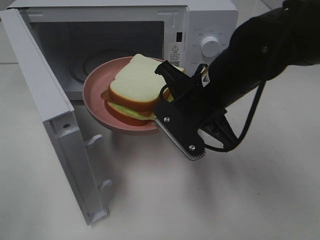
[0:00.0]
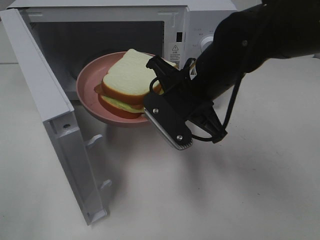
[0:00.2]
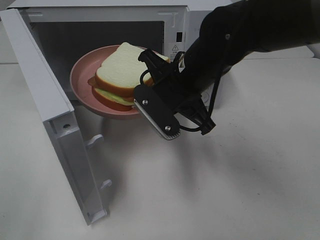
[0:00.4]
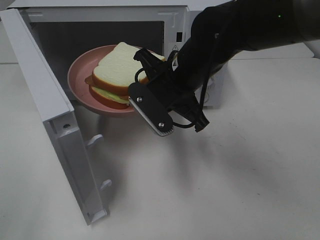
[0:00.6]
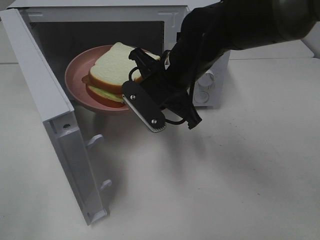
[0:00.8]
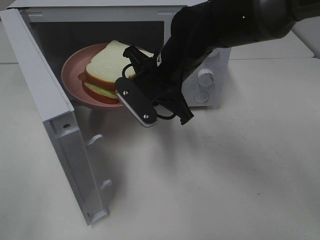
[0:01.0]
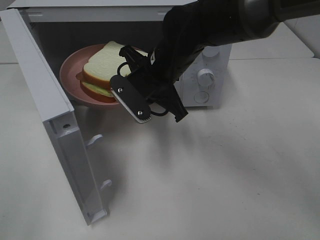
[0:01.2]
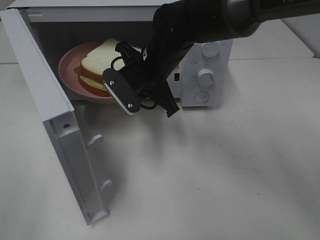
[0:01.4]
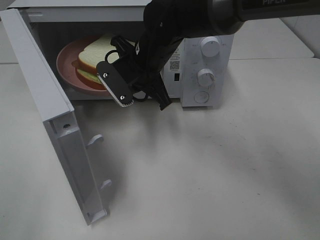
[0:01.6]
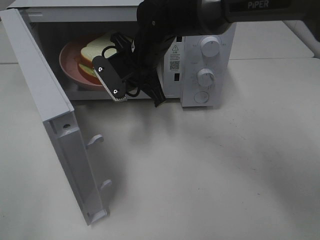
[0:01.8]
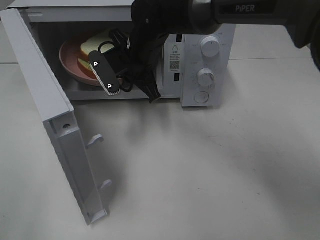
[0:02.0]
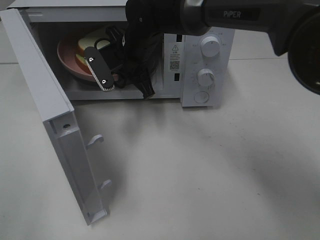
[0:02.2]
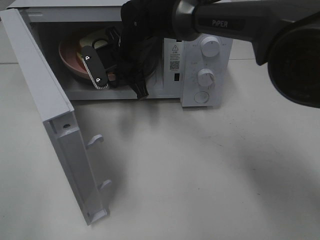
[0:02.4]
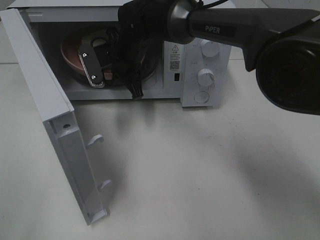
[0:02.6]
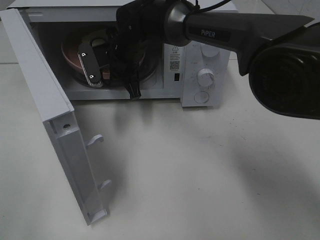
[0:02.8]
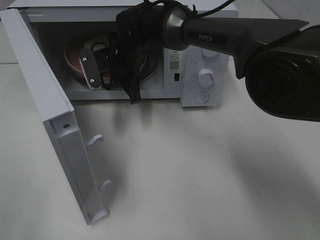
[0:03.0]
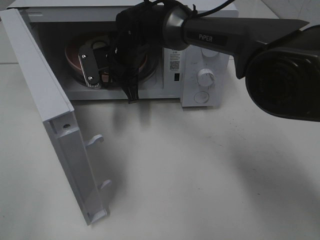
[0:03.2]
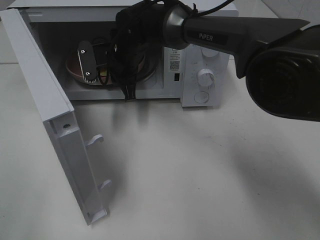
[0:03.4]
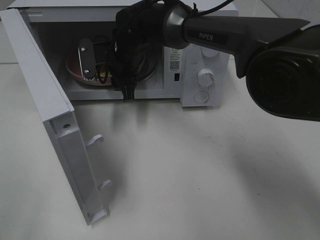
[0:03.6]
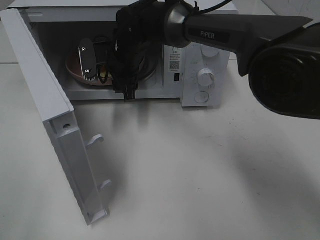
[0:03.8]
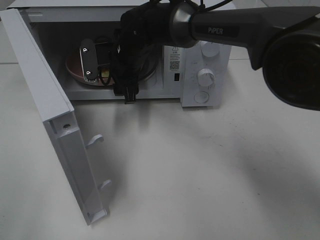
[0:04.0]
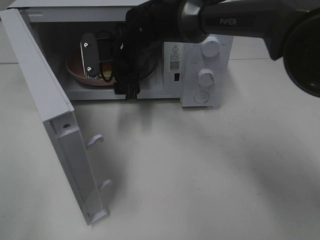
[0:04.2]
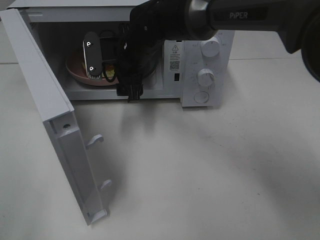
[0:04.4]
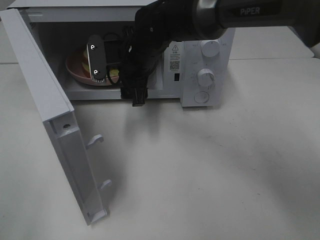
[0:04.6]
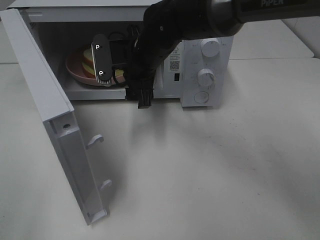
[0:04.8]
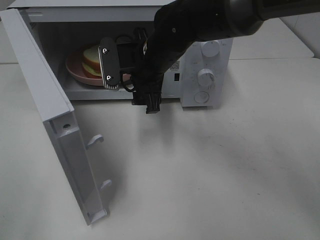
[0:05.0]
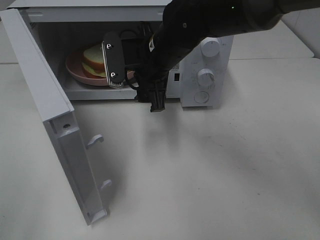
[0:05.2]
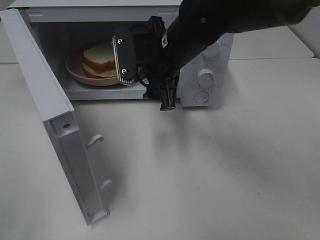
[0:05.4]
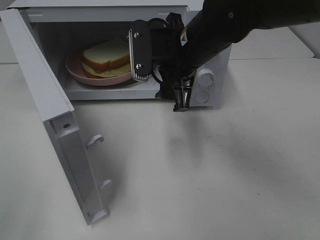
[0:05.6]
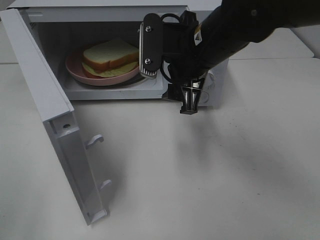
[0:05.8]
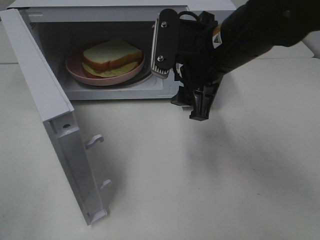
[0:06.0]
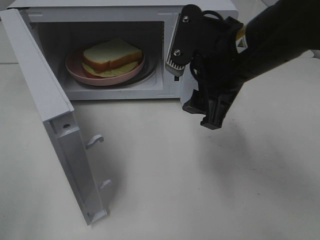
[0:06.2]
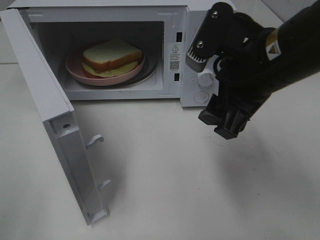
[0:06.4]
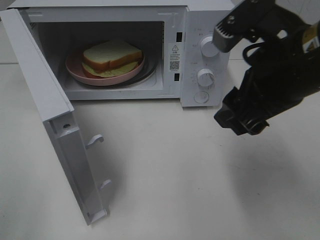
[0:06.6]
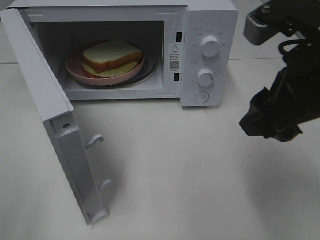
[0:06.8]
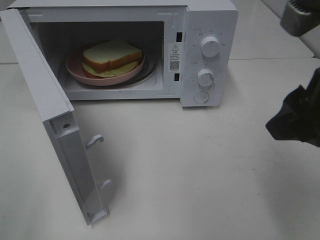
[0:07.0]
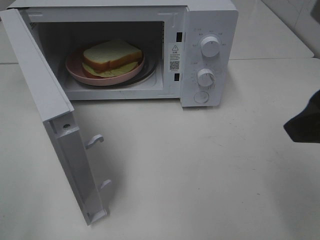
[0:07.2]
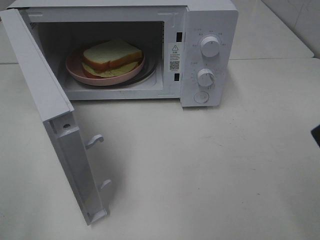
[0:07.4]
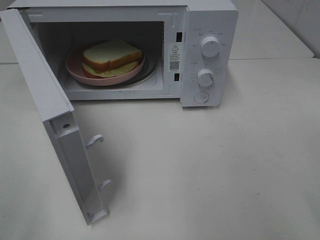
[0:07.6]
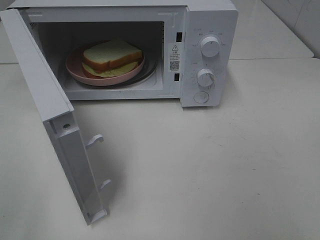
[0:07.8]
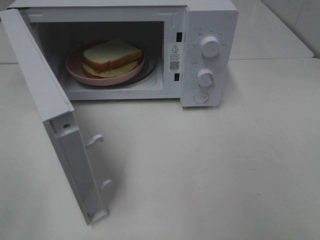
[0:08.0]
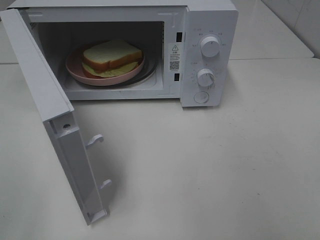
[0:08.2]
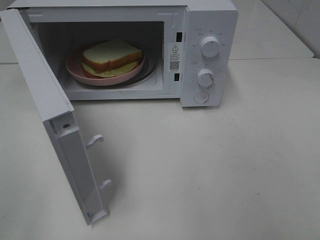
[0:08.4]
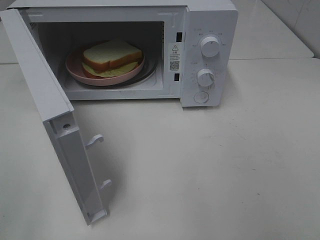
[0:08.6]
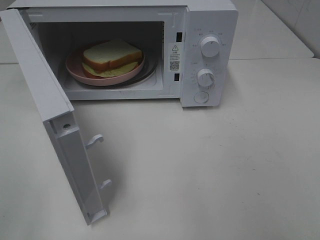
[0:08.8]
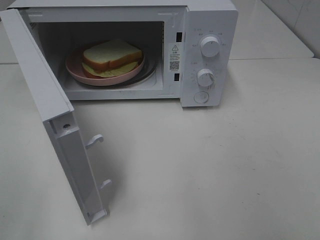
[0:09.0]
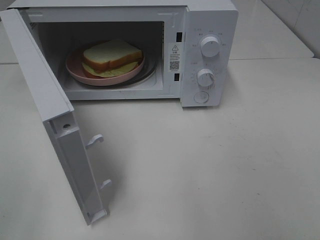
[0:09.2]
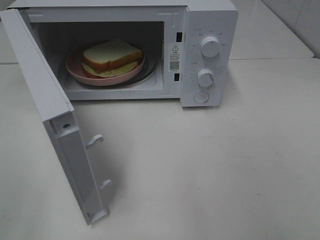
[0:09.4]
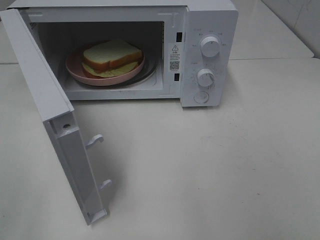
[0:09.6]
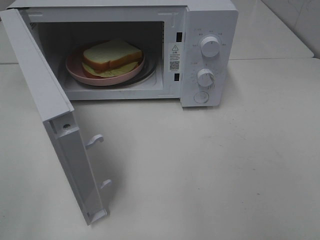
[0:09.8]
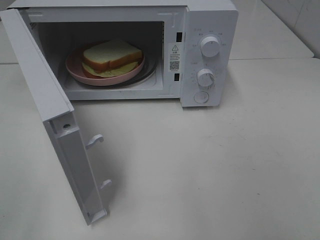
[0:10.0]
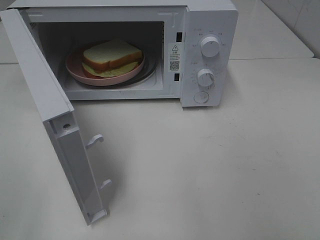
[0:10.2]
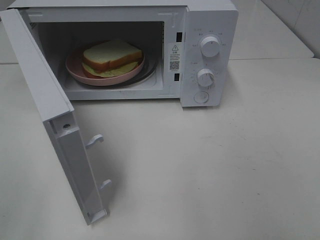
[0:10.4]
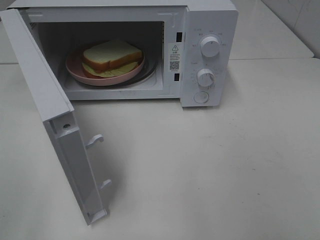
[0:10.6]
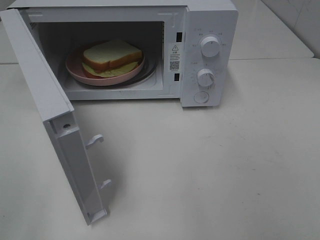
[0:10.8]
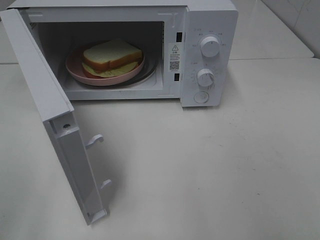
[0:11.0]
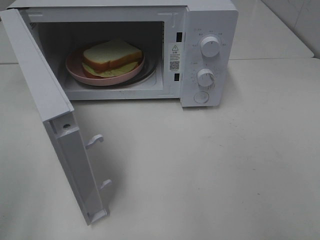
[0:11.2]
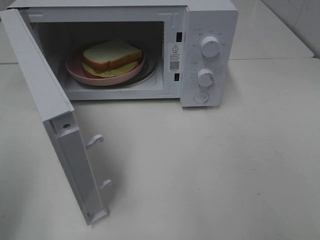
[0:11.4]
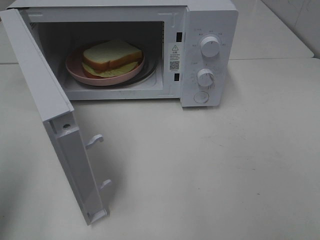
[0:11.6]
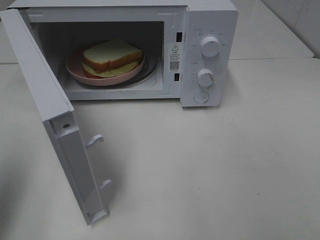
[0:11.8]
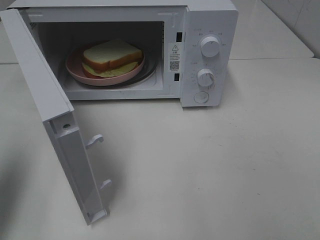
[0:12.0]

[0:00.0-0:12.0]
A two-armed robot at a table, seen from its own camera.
Task of the whole recording: Heat Sandwich.
Step, 0:00.0 to 0:04.8: Right hand: place the plate in the microwave.
0:00.0 to 0:01.6: The right gripper moves forward and to the left, some 15 cm.
0:01.6 to 0:03.0: The right gripper heads forward, covering some 5 cm.
0:03.0 to 0:04.4: The right gripper opens its fingers.
0:04.4 to 0:06.0: The right gripper moves backward, to the right and upward, about 20 cm.
0:06.0 to 0:07.6: The right gripper travels backward, to the right and upward by roughly 25 cm.
0:09.0 to 0:10.4: Both grippers stay put.
0:10.4 to 0:12.0: The left gripper shifts roughly 15 cm forward, and closes.

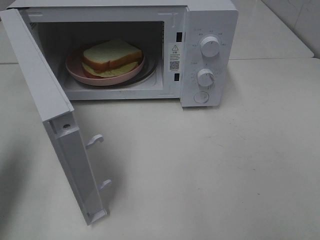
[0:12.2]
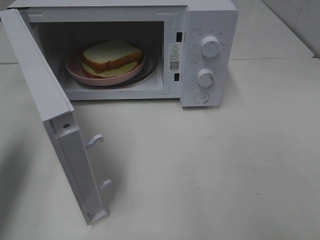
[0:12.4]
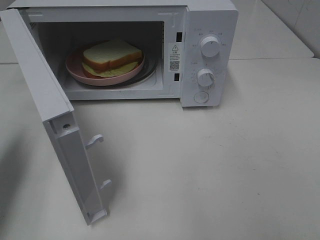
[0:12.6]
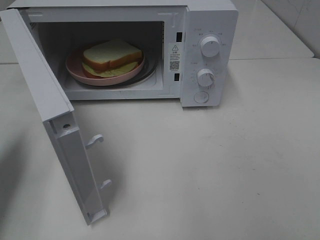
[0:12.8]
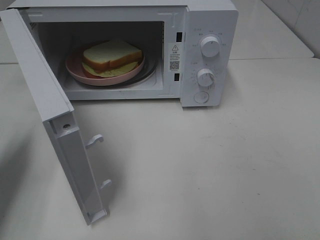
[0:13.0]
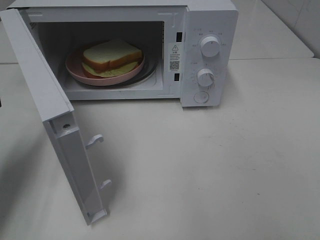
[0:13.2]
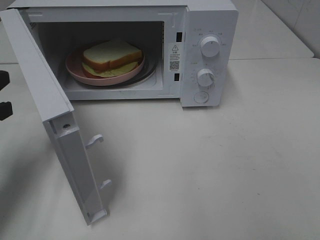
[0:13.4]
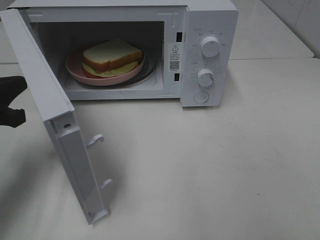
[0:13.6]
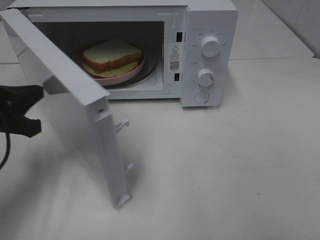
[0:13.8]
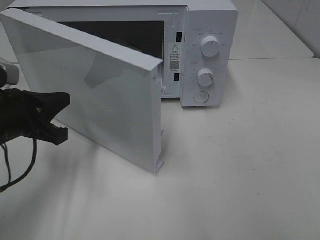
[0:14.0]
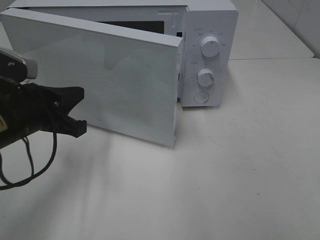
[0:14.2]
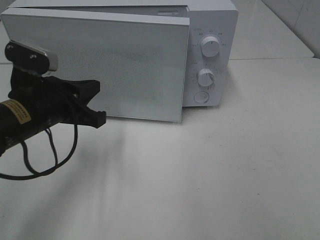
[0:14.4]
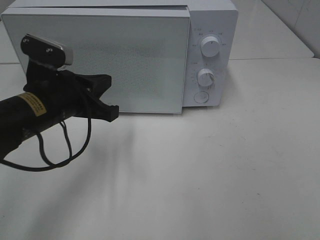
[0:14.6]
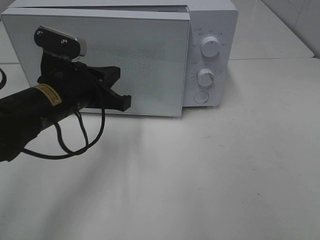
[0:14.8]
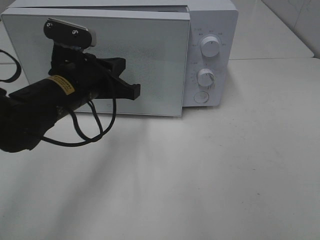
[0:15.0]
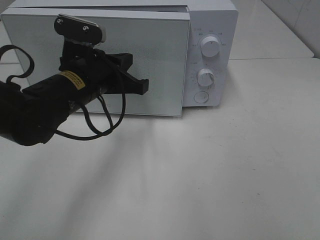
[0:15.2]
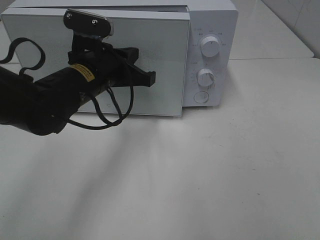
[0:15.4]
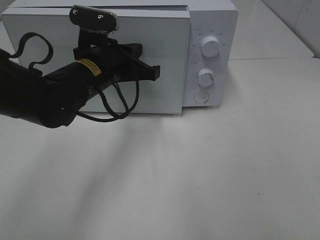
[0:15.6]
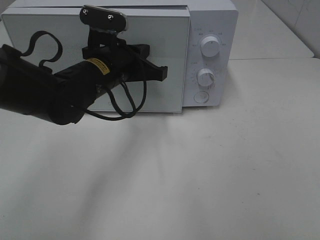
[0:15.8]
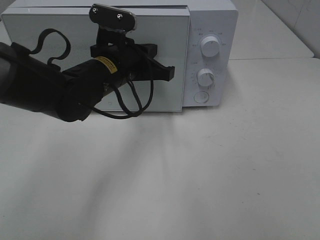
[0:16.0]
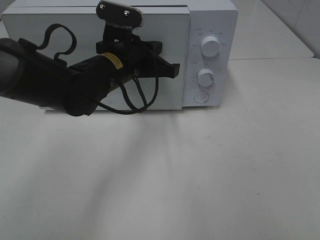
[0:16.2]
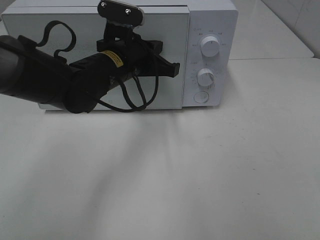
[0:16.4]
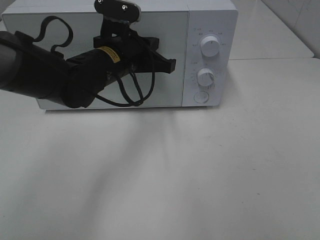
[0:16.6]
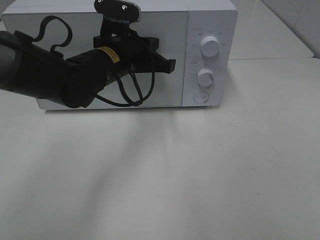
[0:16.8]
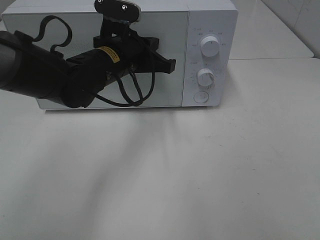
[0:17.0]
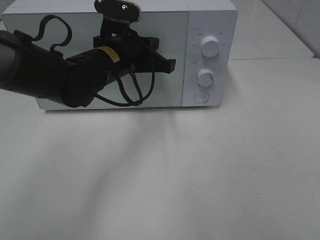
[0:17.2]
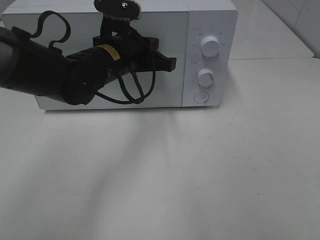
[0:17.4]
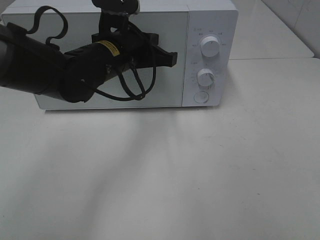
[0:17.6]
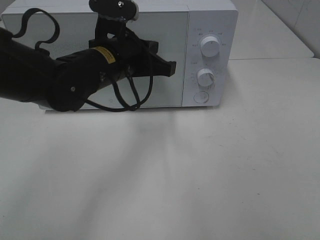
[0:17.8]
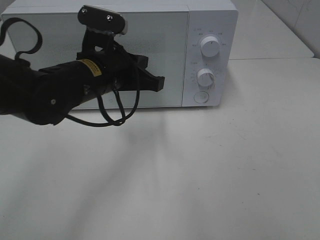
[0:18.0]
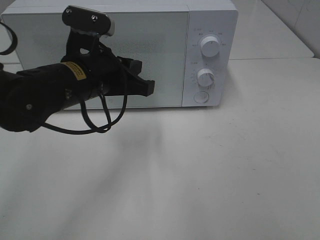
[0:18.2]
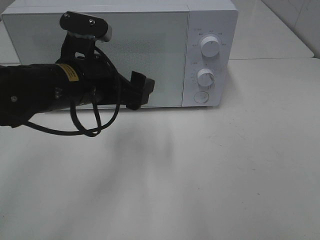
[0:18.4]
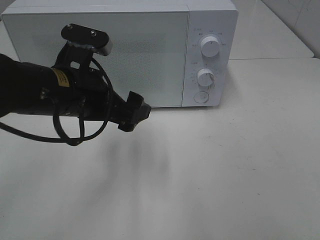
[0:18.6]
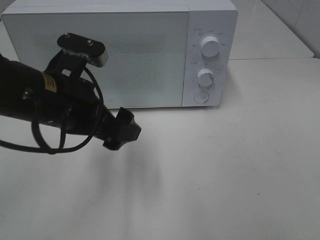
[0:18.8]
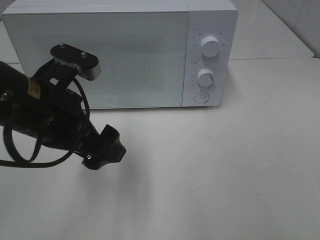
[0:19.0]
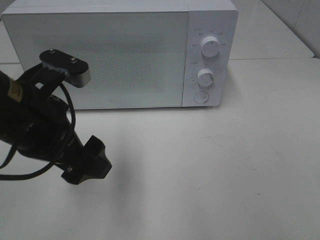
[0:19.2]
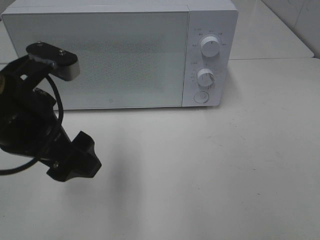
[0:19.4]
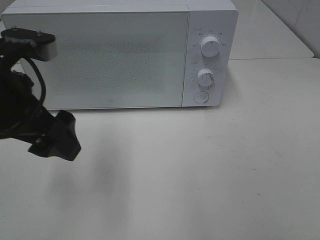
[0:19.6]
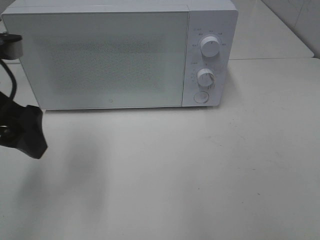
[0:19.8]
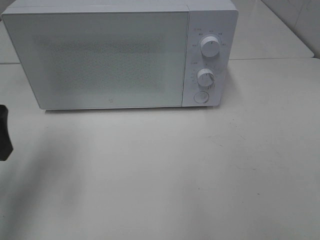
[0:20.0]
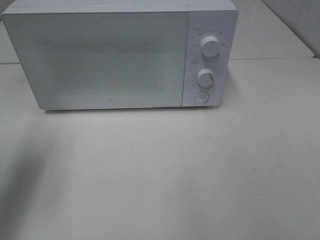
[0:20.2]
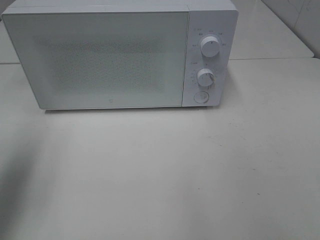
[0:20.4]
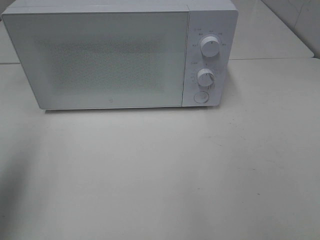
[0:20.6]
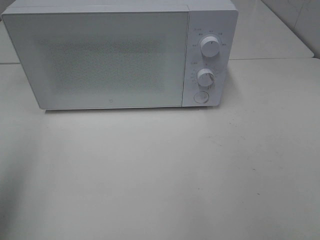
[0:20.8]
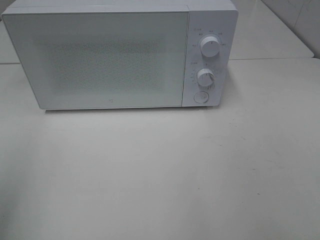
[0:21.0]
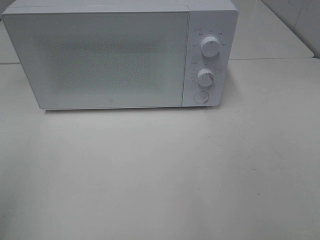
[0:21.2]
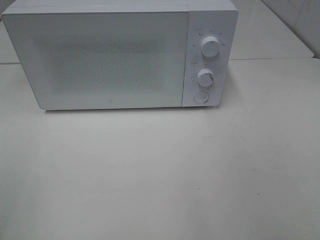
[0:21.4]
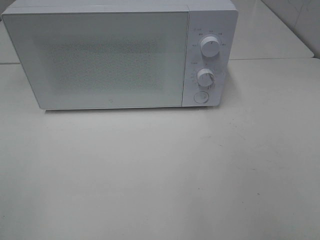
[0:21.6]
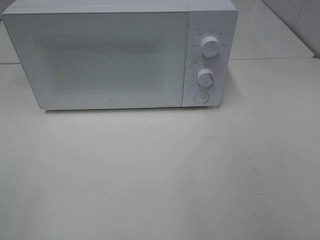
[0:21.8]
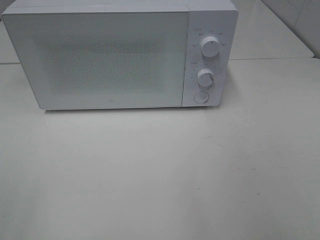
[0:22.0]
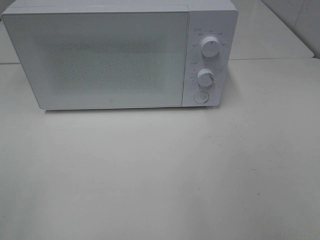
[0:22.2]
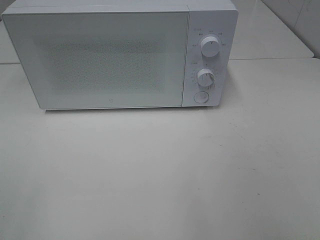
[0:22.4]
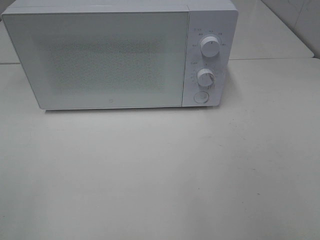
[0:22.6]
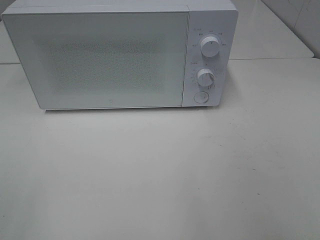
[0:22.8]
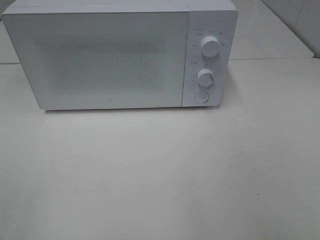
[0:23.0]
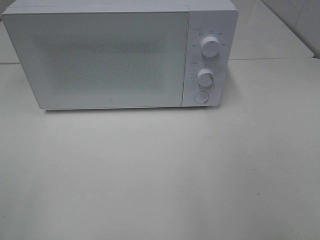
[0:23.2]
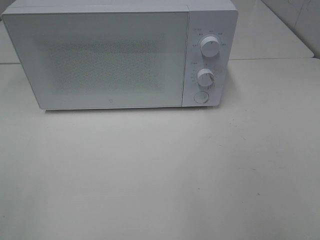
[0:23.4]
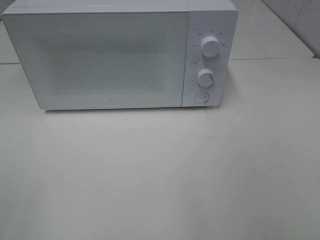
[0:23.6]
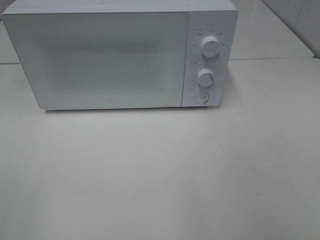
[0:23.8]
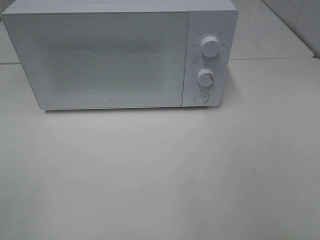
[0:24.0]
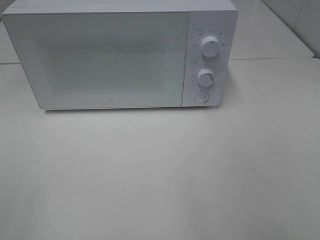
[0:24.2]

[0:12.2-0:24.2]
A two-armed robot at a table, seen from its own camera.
Task of the whole recording: Heat Sandwich.
Step, 0:12.2 to 0:17.8: Left hand: close the microwave door.
0:12.2 to 0:13.8: The left gripper goes some 15 cm downward and to the right.
0:13.8 to 0:15.2: The left gripper shifts some 15 cm to the right and forward.
0:15.2 to 0:16.6: The left gripper travels forward by roughly 5 cm.
0:16.6 to 0:18.2: The left gripper shifts approximately 5 cm backward.
0:18.2 to 0:19.8: The left gripper is displaced to the left, upward and backward by about 15 cm, and opens.
0:19.8 to 0:21.2: The left gripper moves backward, to the left and upward, roughly 20 cm.
0:22.6 to 0:24.2: The two grippers keep their place.
